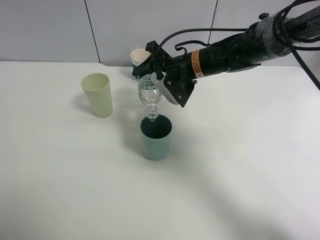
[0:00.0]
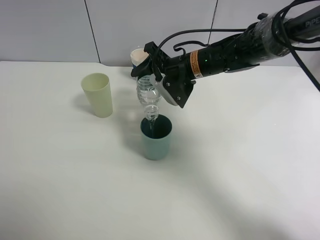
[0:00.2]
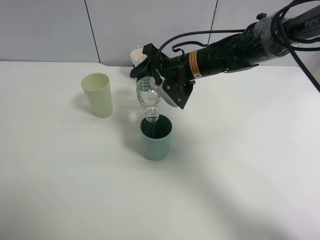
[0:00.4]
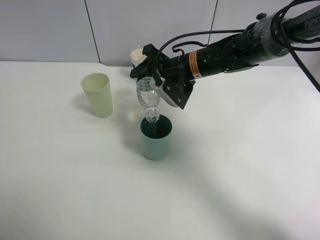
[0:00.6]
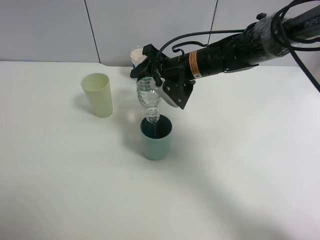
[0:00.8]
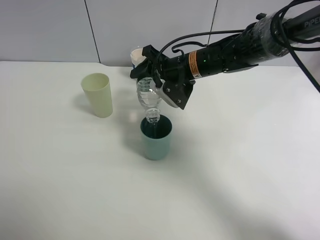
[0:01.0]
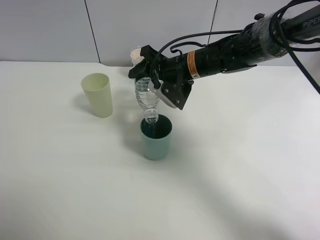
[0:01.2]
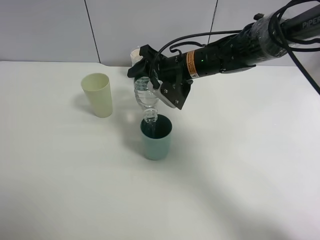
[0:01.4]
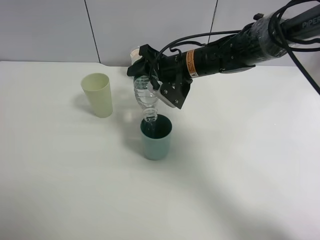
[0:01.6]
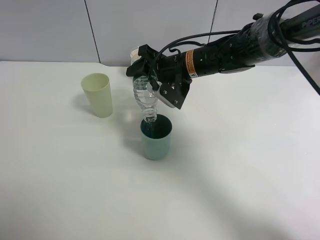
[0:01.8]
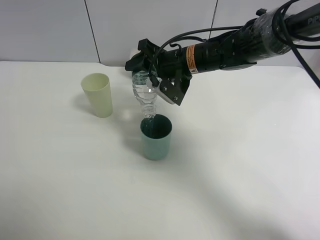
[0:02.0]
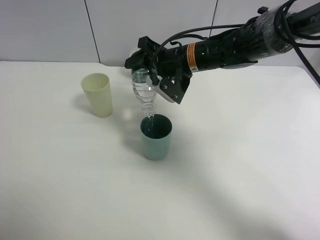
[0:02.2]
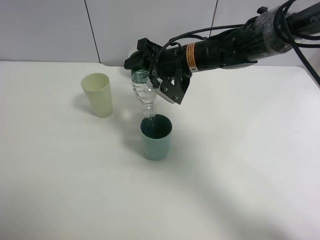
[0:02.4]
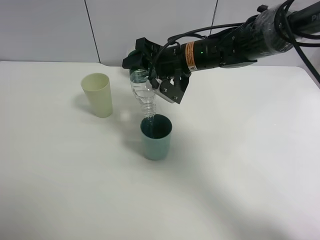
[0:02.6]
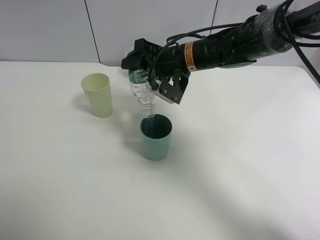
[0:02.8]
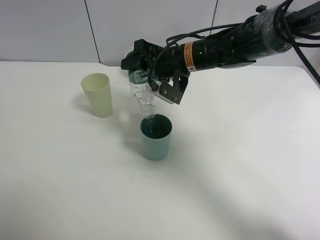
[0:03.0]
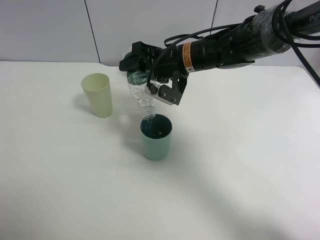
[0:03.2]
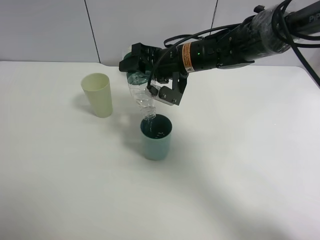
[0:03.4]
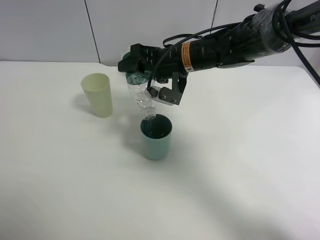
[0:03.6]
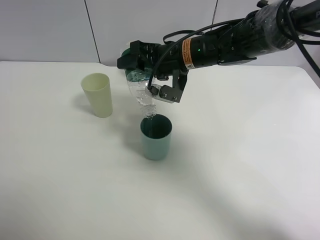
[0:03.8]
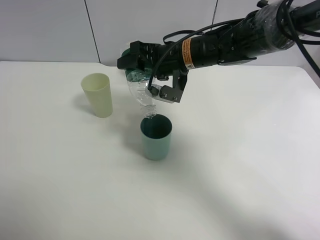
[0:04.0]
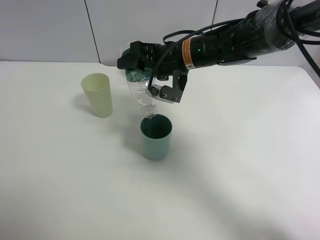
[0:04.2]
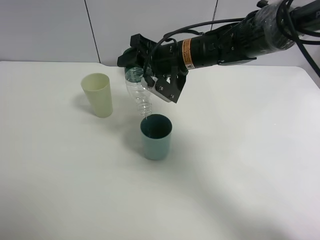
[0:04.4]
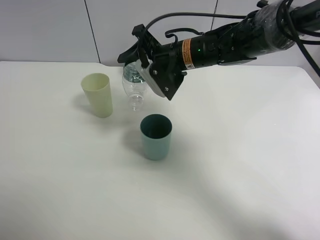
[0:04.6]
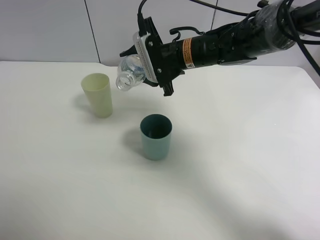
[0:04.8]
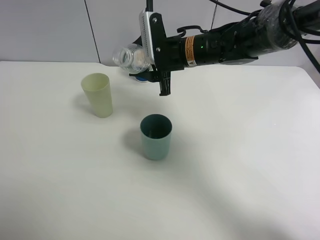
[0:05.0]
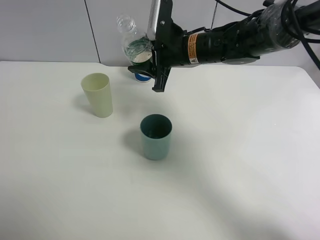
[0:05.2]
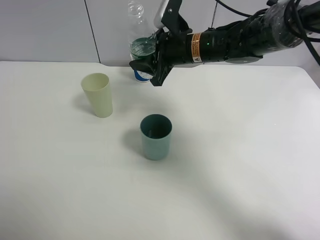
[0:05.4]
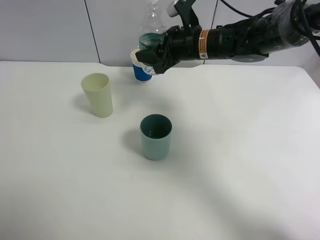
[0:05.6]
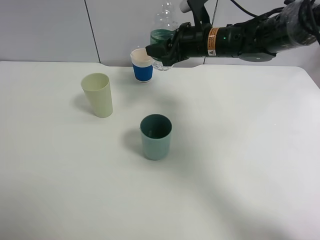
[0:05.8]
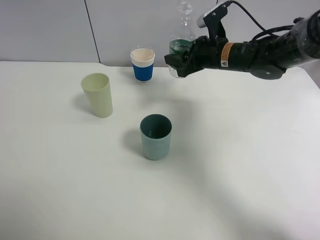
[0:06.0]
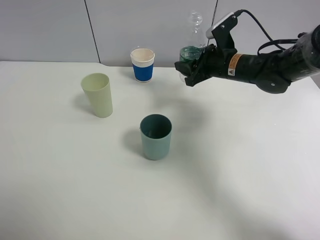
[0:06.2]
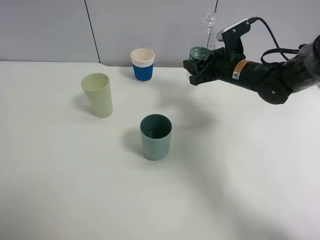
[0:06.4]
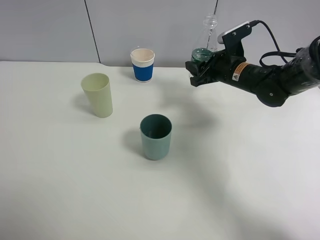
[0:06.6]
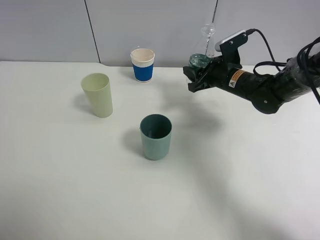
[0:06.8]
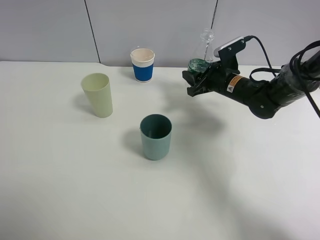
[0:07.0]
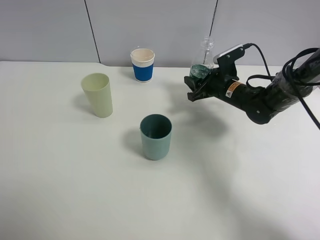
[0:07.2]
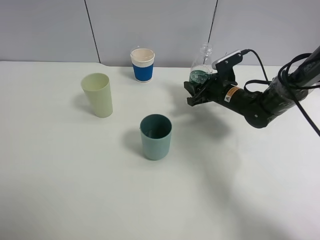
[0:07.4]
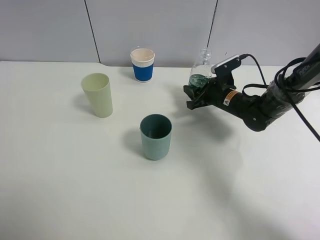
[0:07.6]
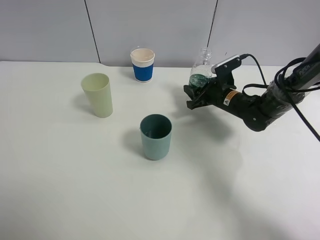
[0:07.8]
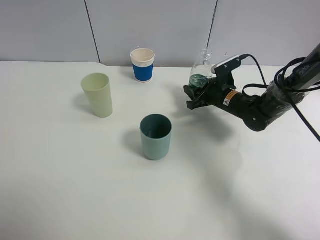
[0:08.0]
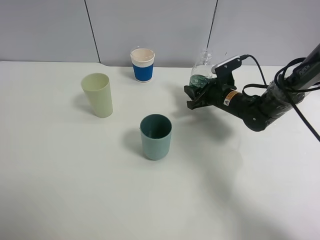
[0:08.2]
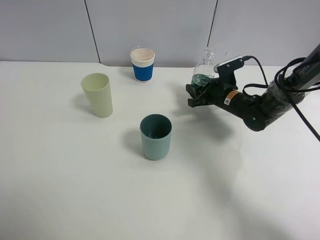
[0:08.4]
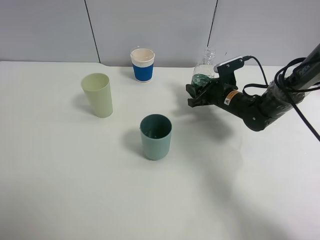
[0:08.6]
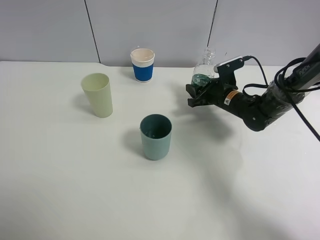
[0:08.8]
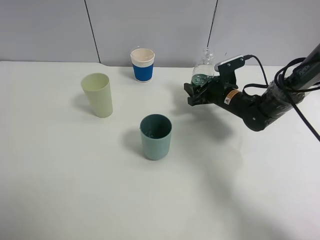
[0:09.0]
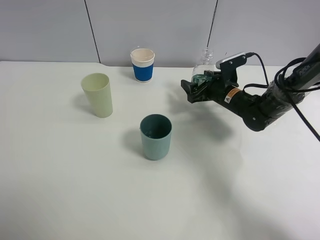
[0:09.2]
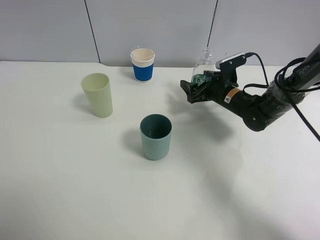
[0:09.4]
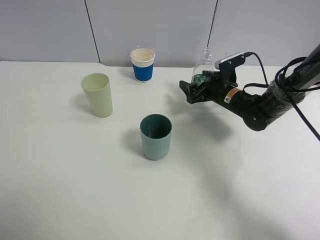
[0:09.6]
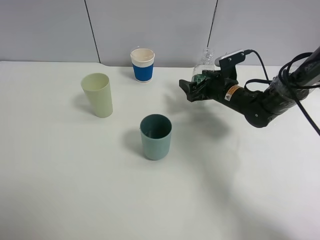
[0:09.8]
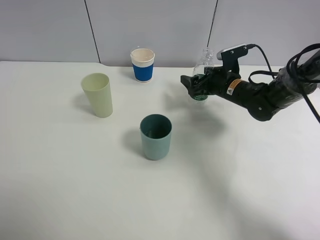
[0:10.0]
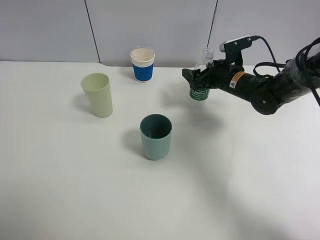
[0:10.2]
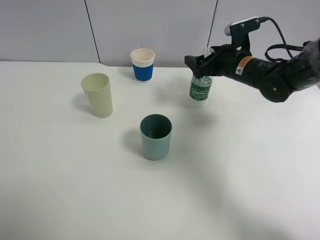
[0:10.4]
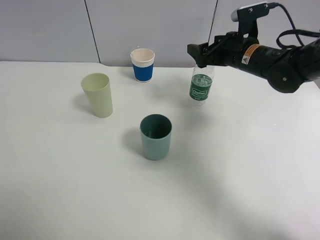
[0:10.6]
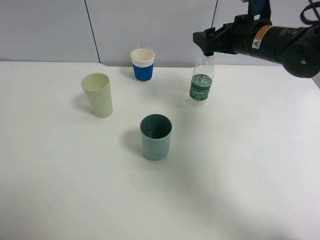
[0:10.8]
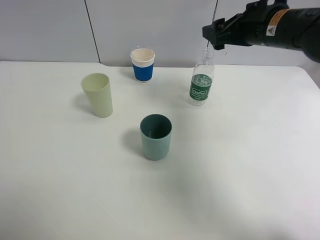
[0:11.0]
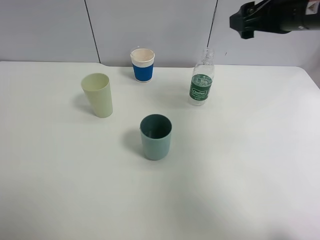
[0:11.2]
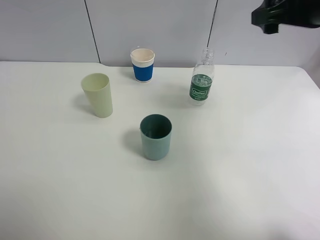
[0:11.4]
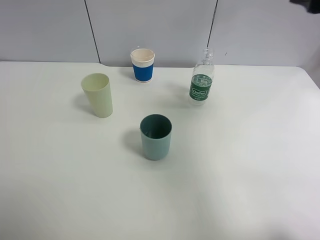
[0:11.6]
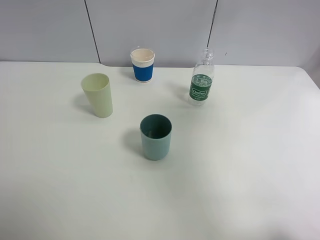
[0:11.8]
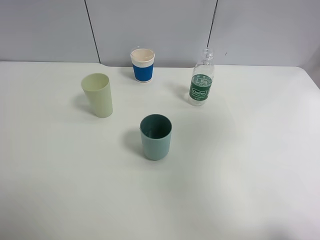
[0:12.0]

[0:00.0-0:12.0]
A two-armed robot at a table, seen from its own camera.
Task of the whole recording: use a clamp to hold the bottle of the drink, pour the beverage into a random cup, then clamp the cup containing the drink and pour the drink into another random cup.
Step, 0:00.0 to 0:05.0: Pour water into the blue plastic cup with right gripper.
Step, 0:05.2 to 0:10.0: Place the water bottle on the table with right gripper.
0:00.0 to 0:01.6: The grippers move only a little.
0:01.6 to 0:04.4: The grippers make only small movements.
0:04.4 to 0:06.0: The right gripper is displaced to the right by about 10 cm.
0:06.0 to 0:07.6: The right gripper is displaced downward by about 10 cm.
0:07.6 to 0:09.0: The right gripper opens up.
0:09.0 to 0:10.4: The right gripper is displaced upward by roughly 10 cm.
0:10.4 to 0:12.0: The right gripper is displaced backward, upward and to the right by some 35 cm.

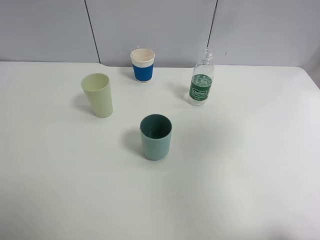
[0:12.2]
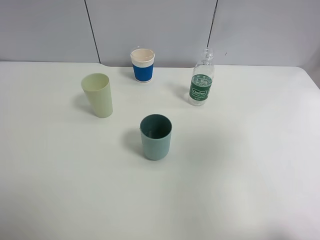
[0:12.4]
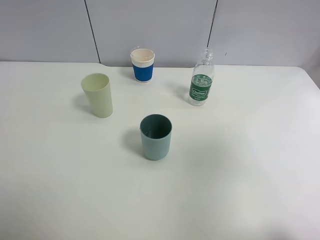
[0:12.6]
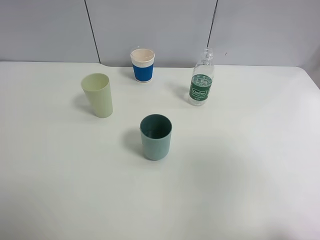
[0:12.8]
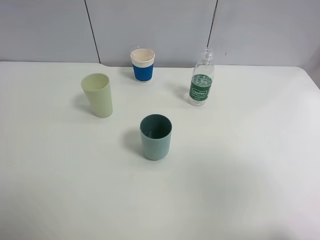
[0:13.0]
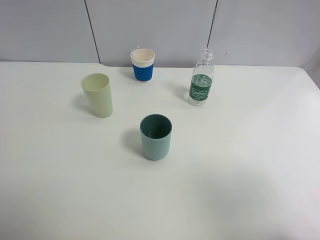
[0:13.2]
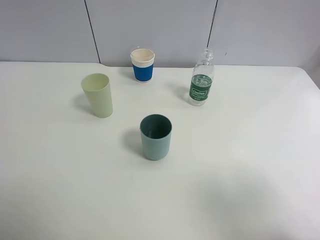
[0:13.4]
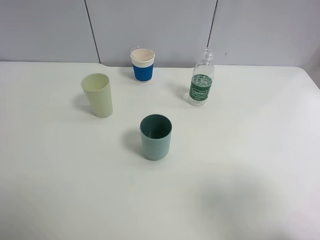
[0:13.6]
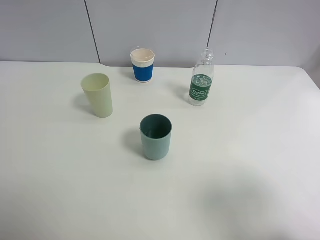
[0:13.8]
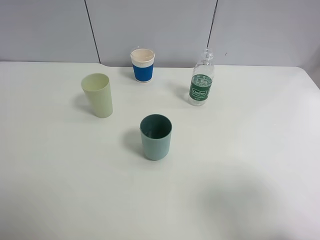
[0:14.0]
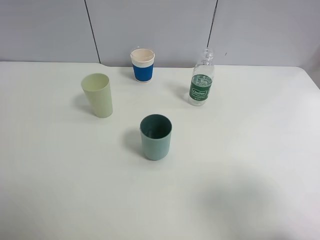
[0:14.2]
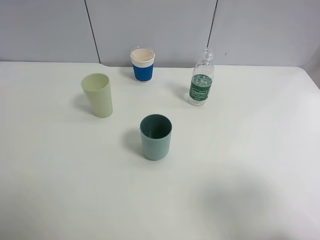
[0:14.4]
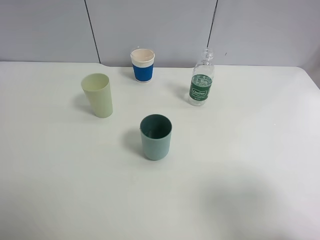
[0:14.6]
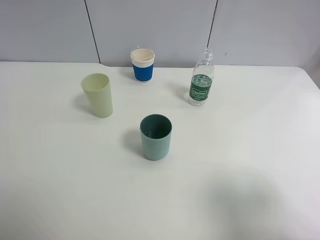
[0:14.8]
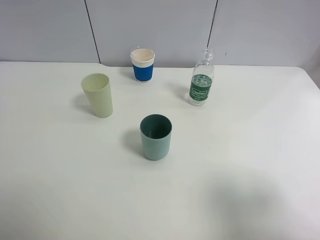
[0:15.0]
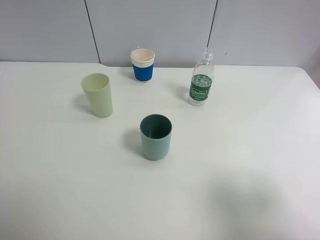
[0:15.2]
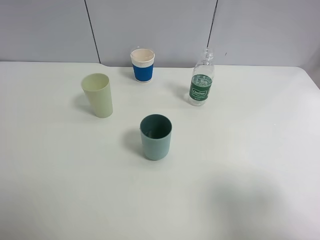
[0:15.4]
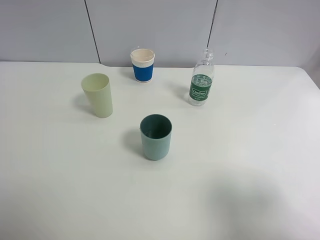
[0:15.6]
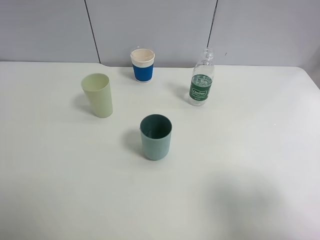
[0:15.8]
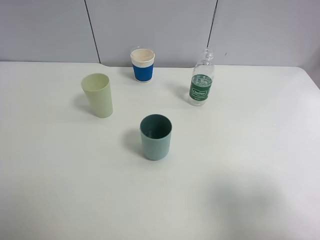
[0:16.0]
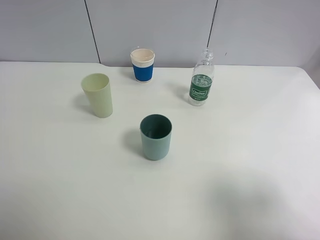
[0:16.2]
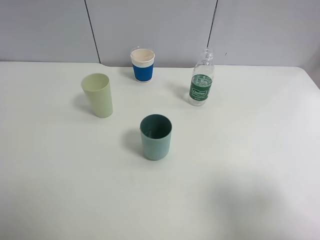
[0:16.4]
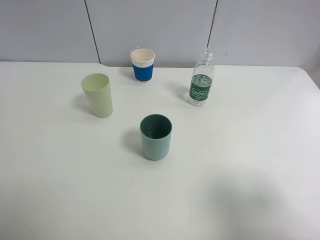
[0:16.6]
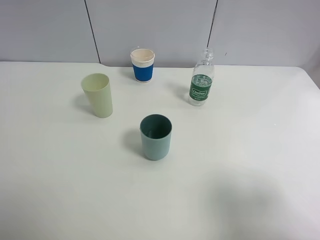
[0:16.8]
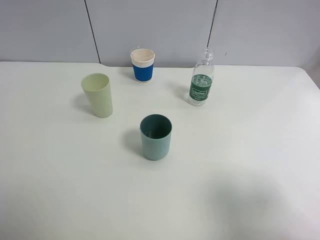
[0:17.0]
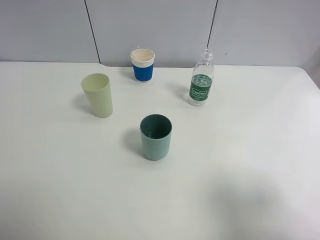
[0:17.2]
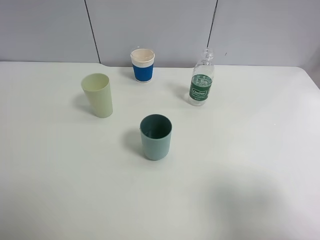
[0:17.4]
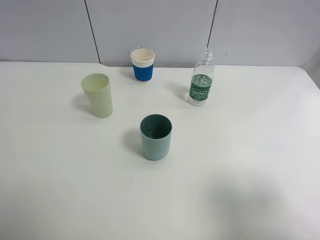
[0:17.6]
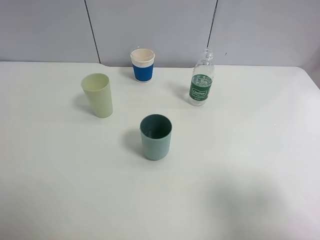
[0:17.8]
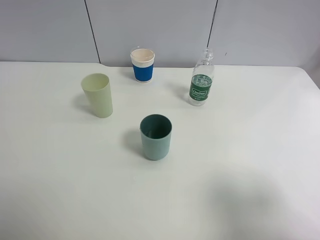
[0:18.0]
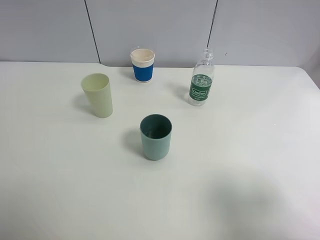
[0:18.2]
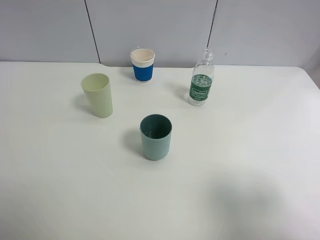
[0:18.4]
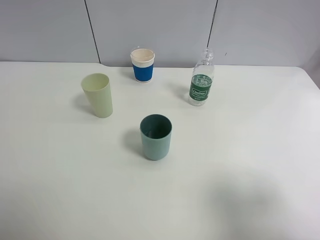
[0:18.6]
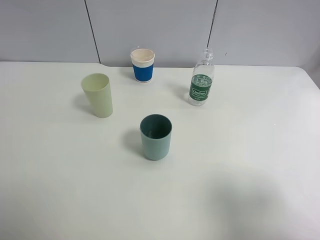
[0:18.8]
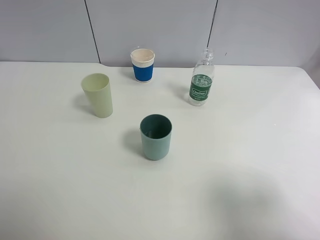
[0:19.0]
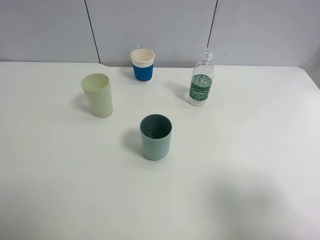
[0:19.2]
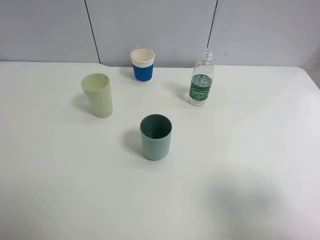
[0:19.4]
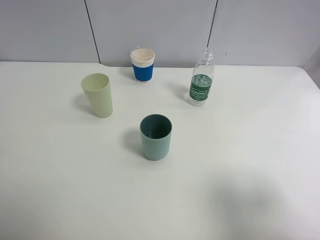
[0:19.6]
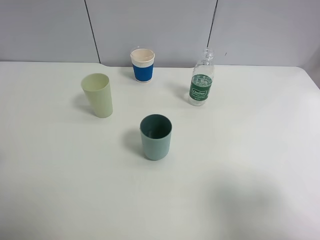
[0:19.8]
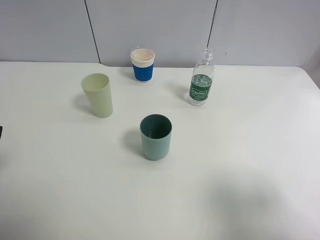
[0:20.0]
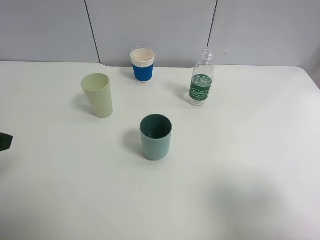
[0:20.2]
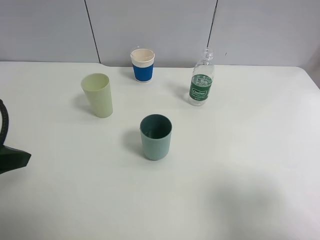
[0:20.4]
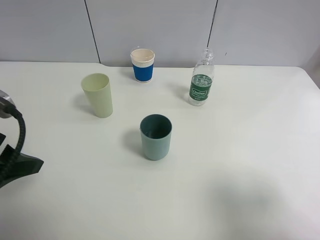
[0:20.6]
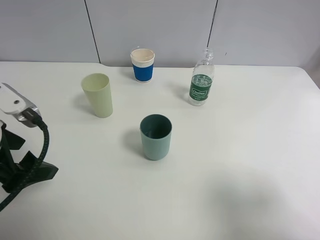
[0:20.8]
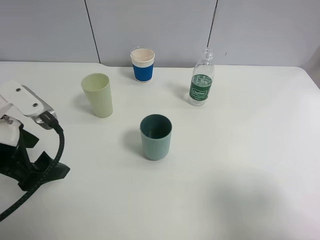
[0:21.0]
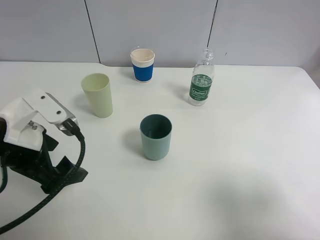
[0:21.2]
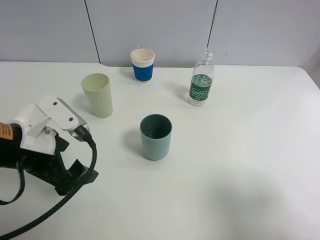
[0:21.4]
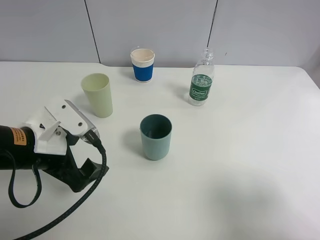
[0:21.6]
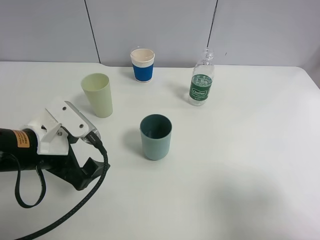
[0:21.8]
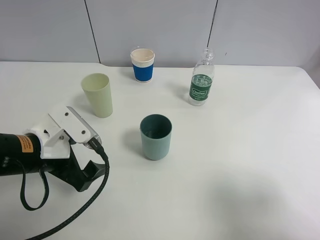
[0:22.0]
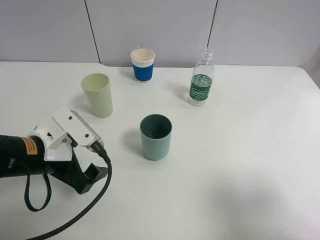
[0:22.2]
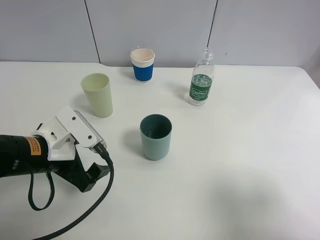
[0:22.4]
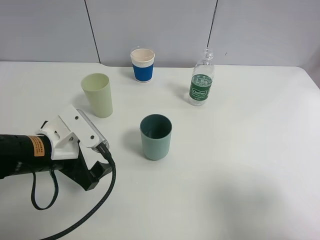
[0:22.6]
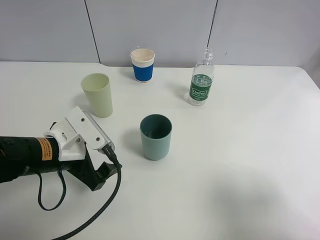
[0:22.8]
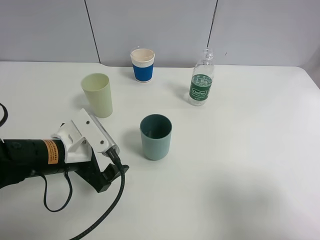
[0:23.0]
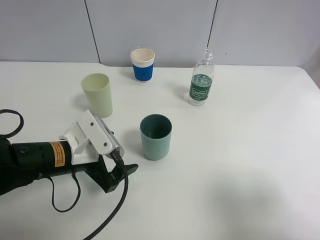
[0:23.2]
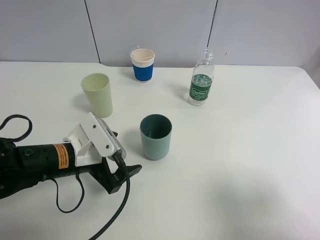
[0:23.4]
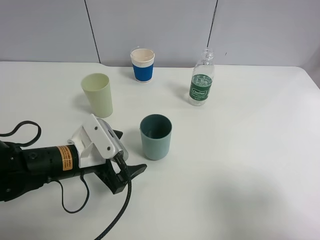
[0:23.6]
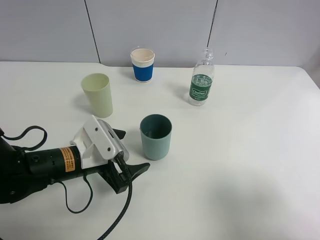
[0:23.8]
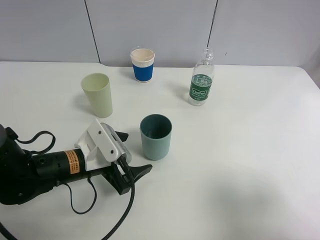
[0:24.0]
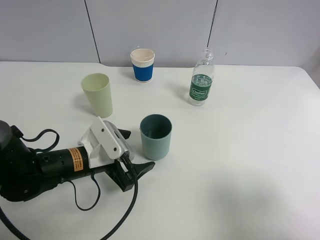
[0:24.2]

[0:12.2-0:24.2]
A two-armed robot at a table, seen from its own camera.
Task of the whole recording: use a clamp to hold the bottle of the drink, pour the beverage into a random cup, then clamp the cup containing the drink and pour the drink into another random cup.
0:12.2 to 0:13.8: The right gripper heads downward and backward, covering roughly 15 cm.
0:15.2 to 0:18.2: Both grippers stay put.
0:19.8 to 0:21.2: The left gripper heads to the right, downward and forward, covering approximately 15 cm.
0:21.2 to 0:22.6: The left gripper moves downward, some 5 cm.
0:22.6 to 0:24.2: The left gripper goes roughly 5 cm downward.
